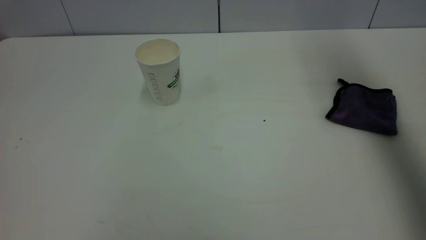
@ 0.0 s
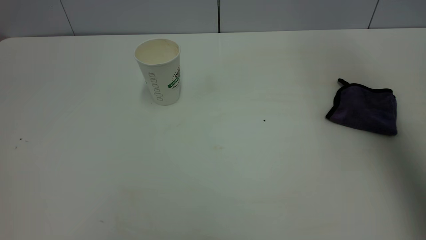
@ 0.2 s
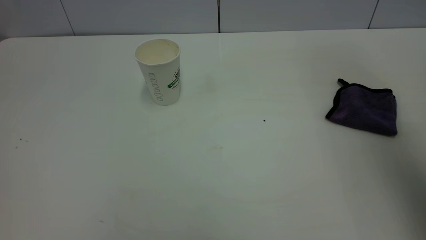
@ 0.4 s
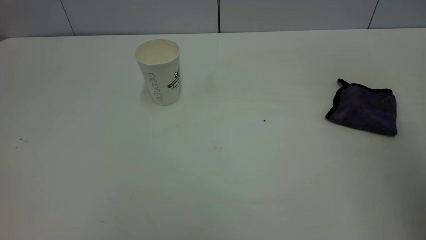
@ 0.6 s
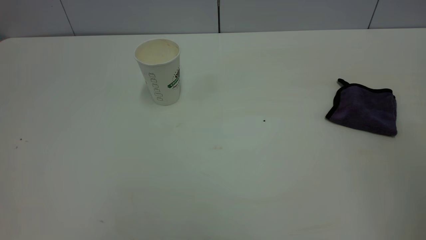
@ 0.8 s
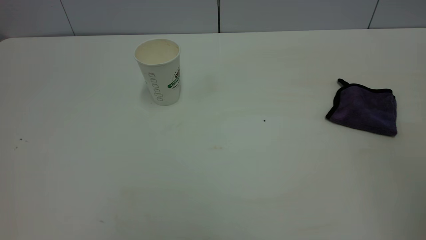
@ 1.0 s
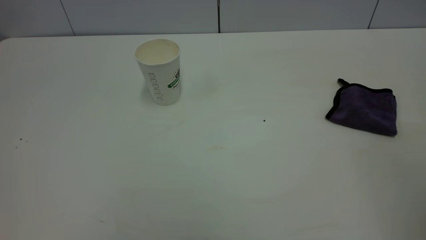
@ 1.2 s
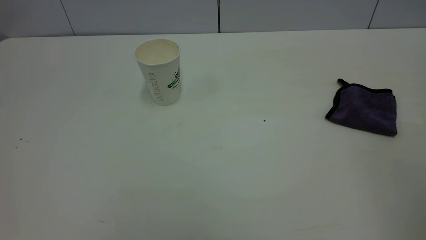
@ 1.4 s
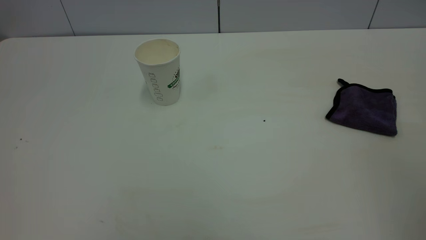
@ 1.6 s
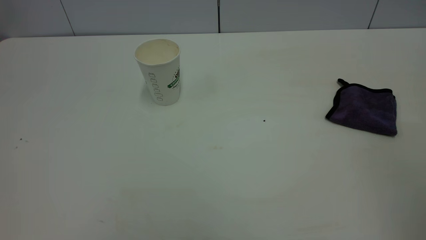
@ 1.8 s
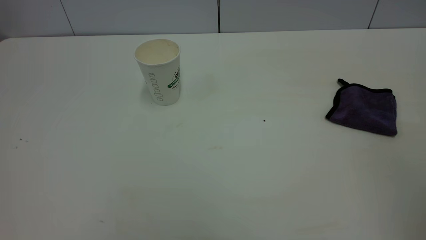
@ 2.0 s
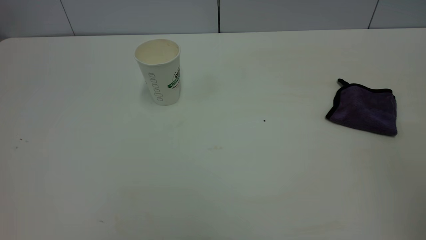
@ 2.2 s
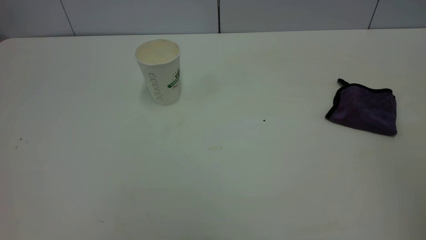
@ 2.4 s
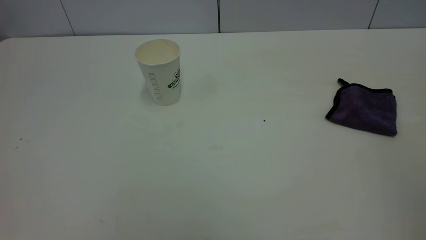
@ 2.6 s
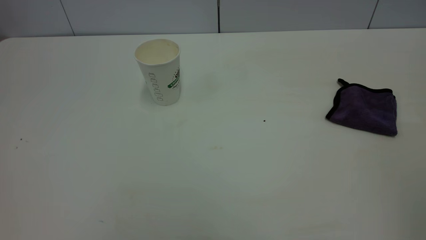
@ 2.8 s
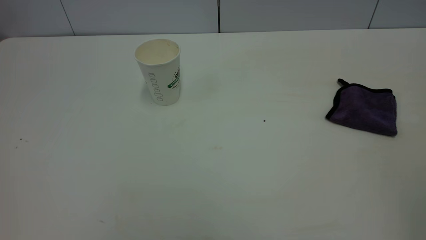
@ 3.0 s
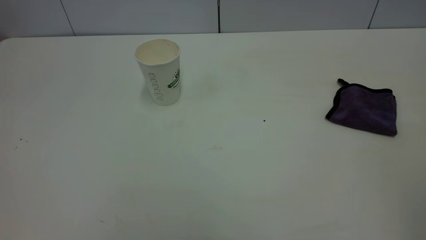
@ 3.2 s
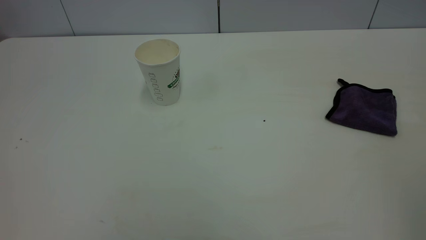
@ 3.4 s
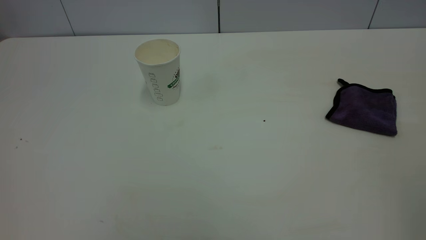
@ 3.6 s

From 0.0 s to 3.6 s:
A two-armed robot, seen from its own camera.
Task of the whole recording: the left gripper pick up the fallen cup and place it upright, the right gripper grasp the purple rag and wipe the tea stain on the table, the right gripper put the purple rag back in its original position.
From 0.0 s to 1.8 s: The right gripper goes roughly 35 cm backward, and closes up.
